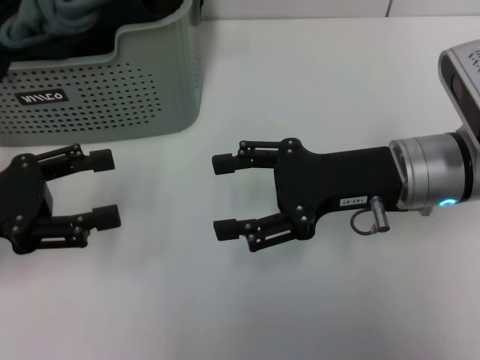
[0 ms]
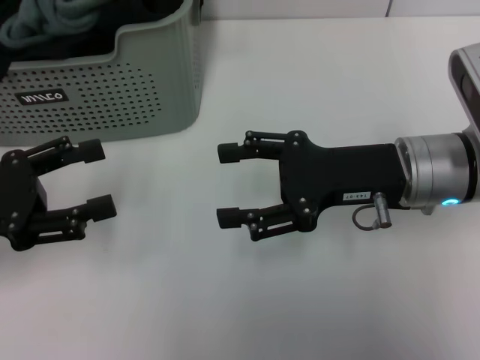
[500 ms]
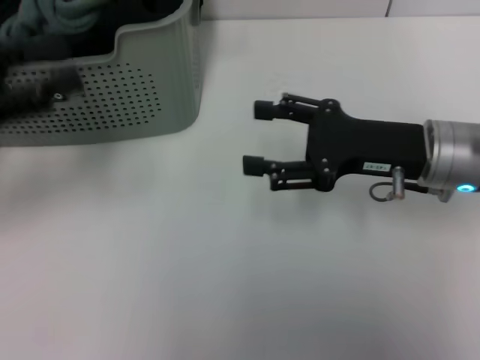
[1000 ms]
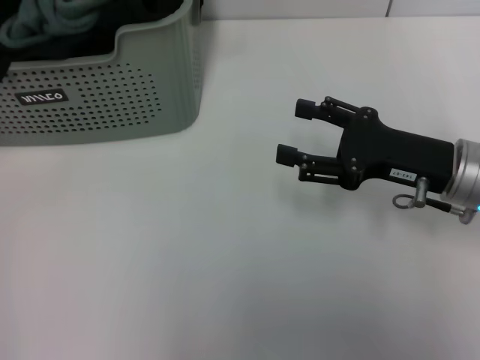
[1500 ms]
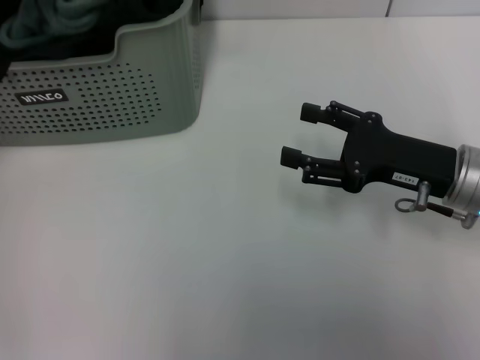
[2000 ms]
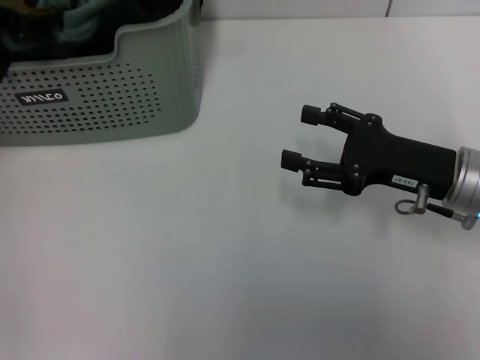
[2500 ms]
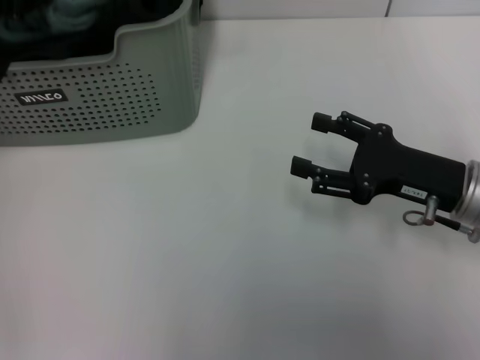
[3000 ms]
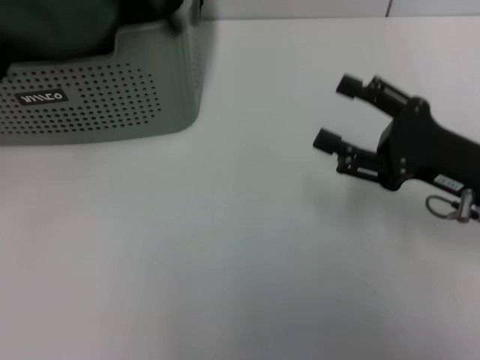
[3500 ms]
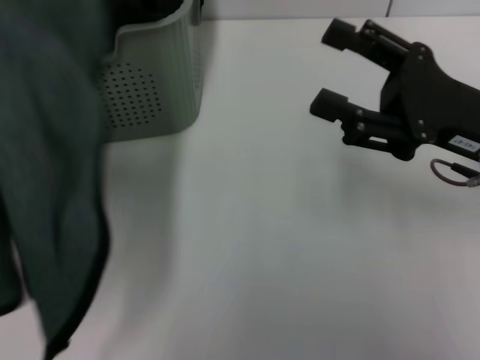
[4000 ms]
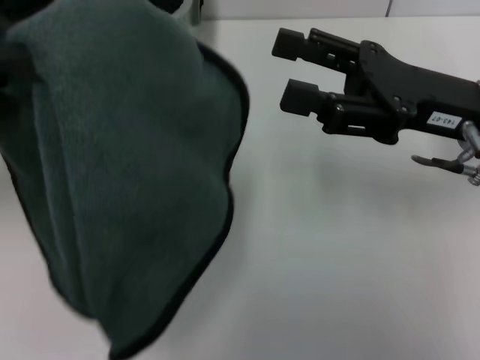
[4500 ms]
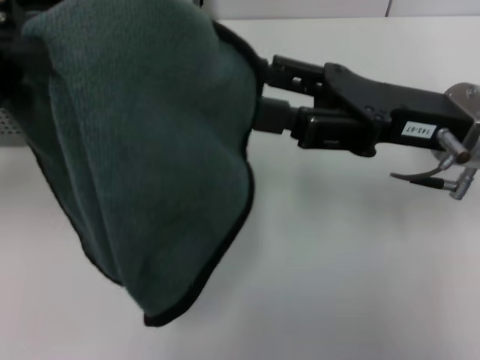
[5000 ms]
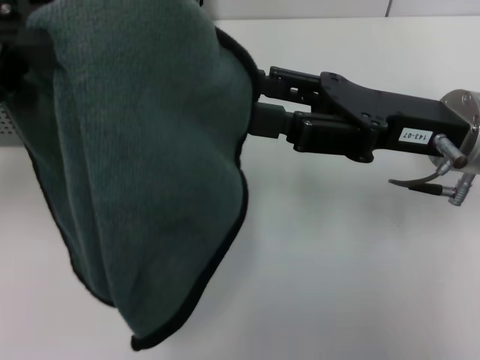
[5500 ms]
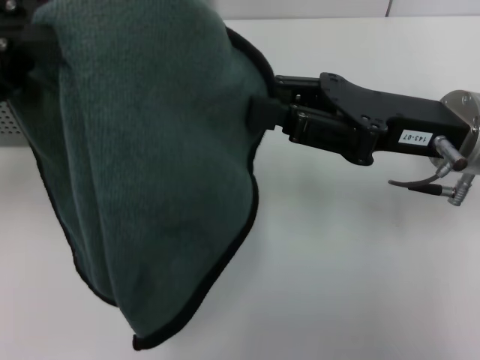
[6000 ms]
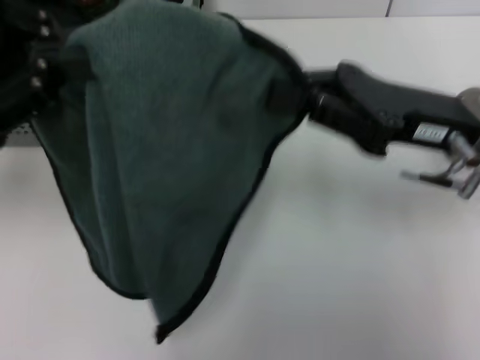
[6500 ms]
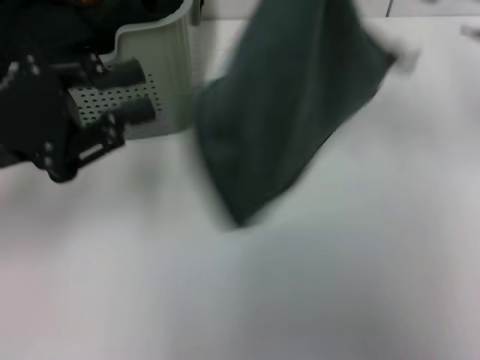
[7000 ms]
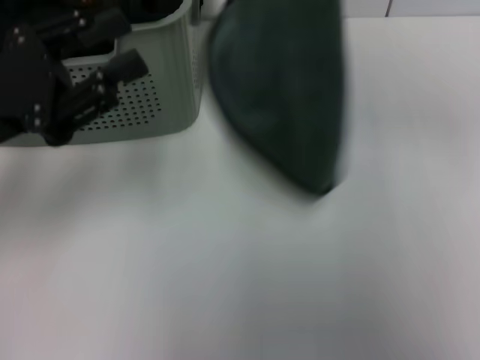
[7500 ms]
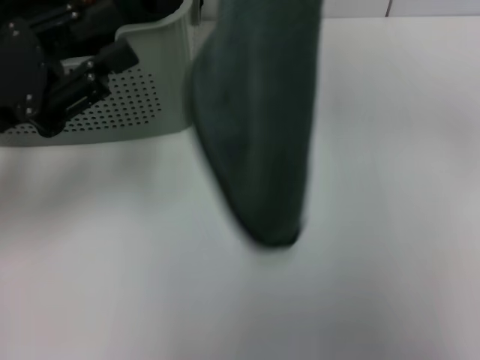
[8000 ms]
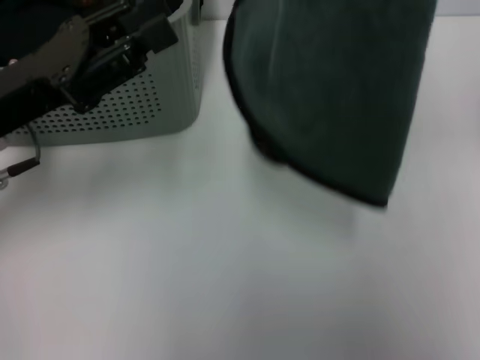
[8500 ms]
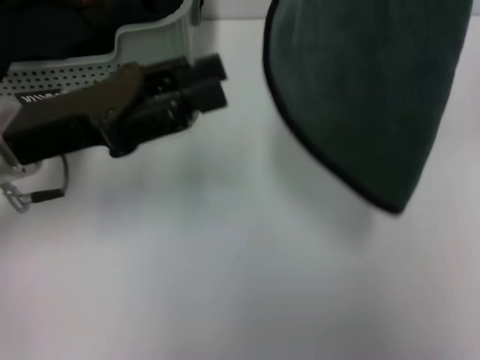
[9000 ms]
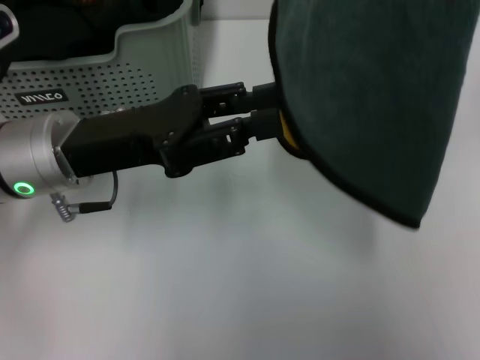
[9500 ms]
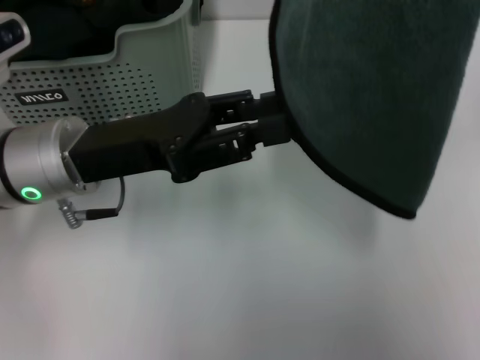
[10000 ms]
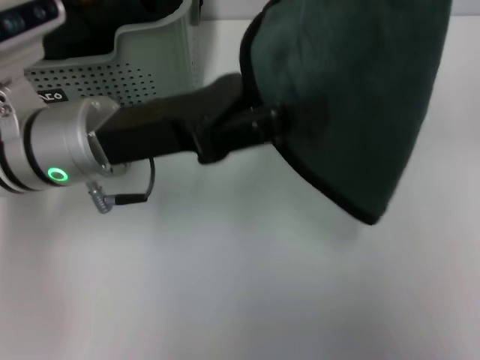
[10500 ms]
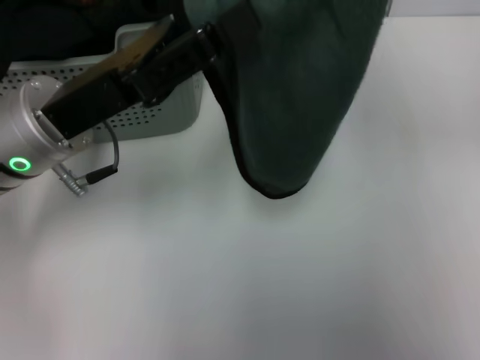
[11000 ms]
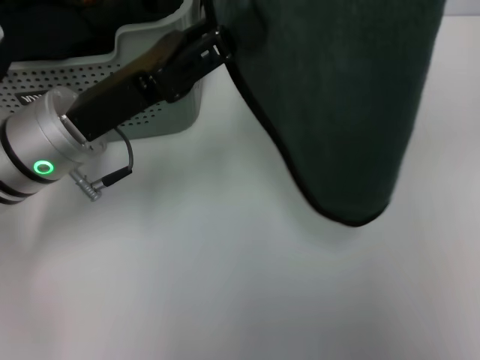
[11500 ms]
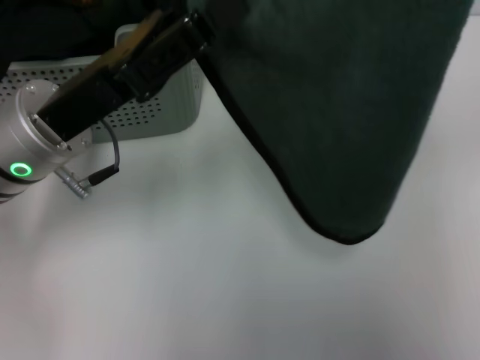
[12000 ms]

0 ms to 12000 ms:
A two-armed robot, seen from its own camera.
Task of the whole recording: pick up the towel from the storage box and lay it flat on the table.
Step, 0 ms to 3000 ms: Pick up a towel with the left gripper.
Step, 3500 ms to 6000 ms: Spread the towel flat with the left gripper.
0 ms to 2000 ms: The right gripper heads to the right, covering roughly 5 cm, while the left gripper goes approximately 20 cm upward and forward.
2000 ms to 4000 ms: The left gripper goes some 10 cm backward, and closes. Meanwhile the right gripper shifts approximately 5 cm upward.
4000 ms to 6000 ms: The left gripper shifts some 5 cm to the right, while the right gripper closes up.
6000 ms to 8000 ms: The right gripper shifts some 20 cm upward, and closes; the left gripper travels downward by roughly 10 cm, and opens.
8000 ms to 10000 ms: The left gripper moves to the right, about 10 cm.

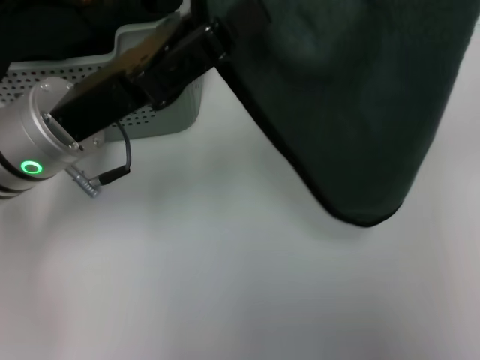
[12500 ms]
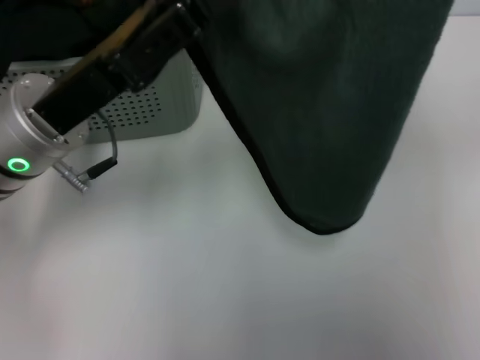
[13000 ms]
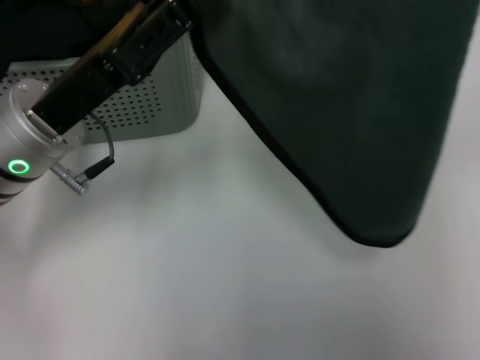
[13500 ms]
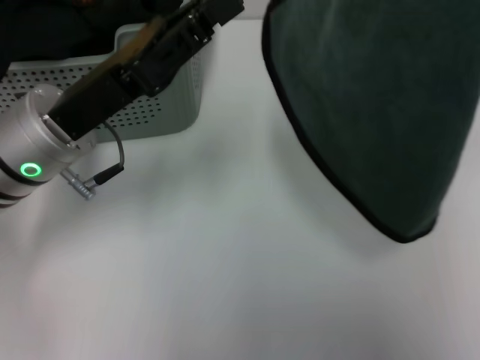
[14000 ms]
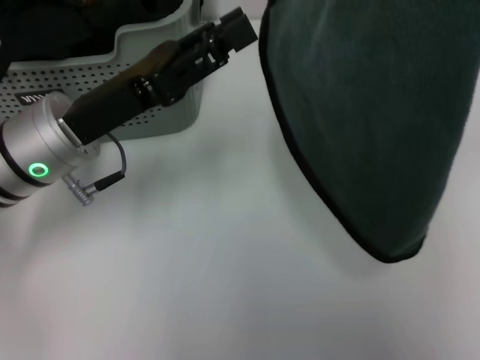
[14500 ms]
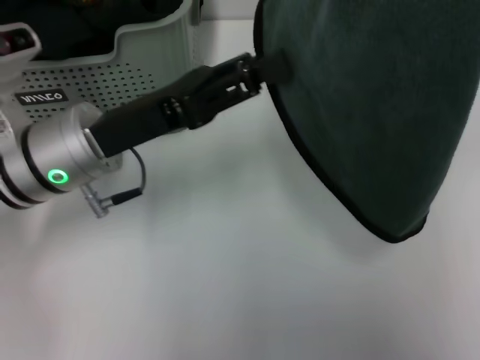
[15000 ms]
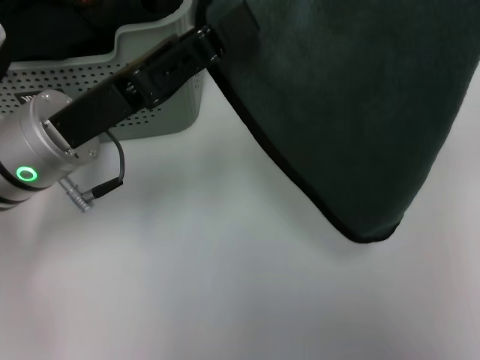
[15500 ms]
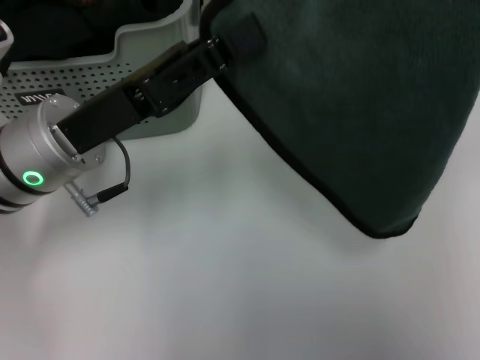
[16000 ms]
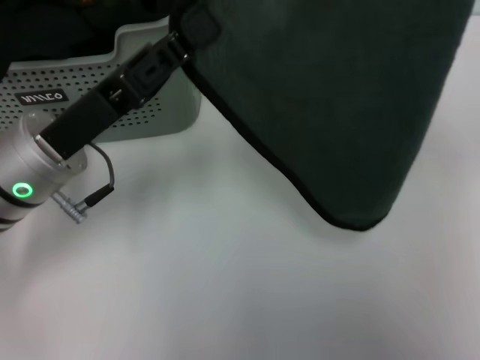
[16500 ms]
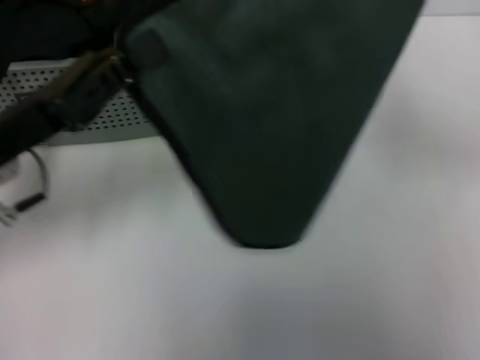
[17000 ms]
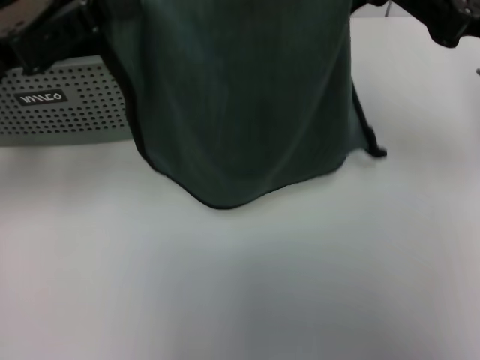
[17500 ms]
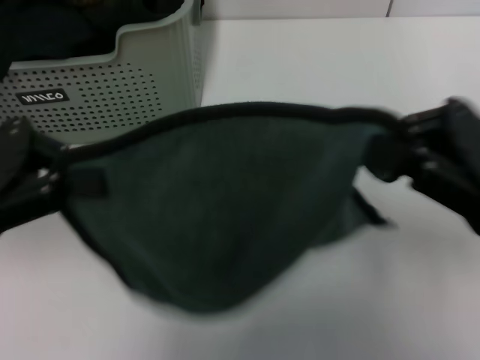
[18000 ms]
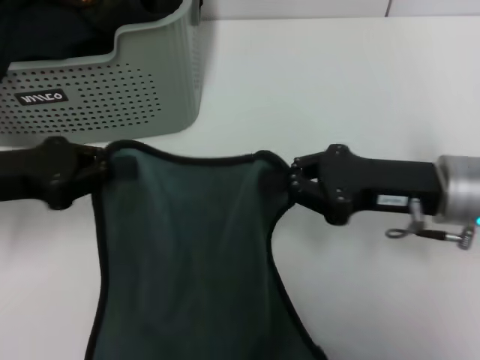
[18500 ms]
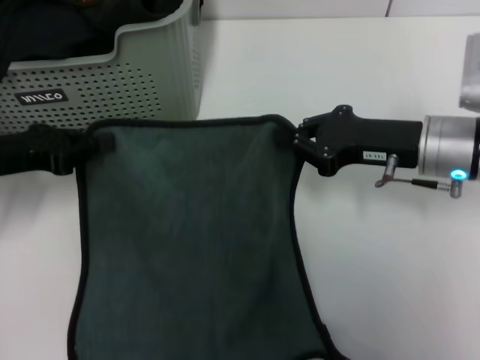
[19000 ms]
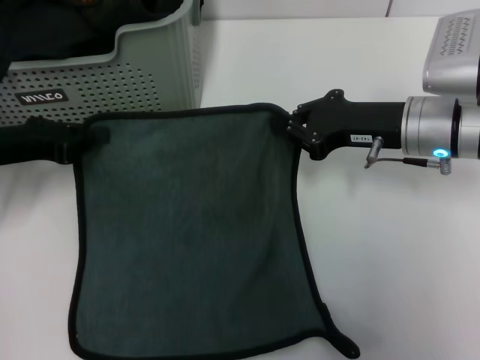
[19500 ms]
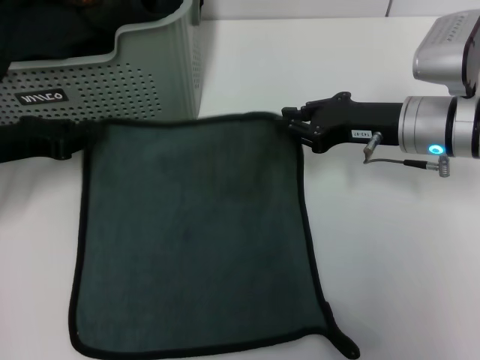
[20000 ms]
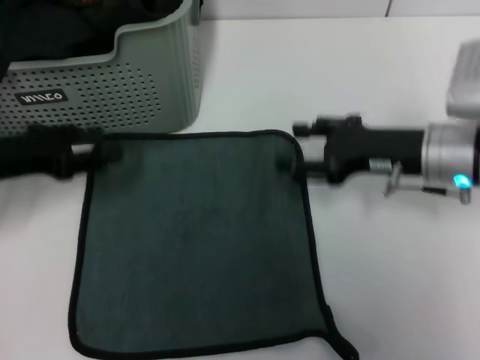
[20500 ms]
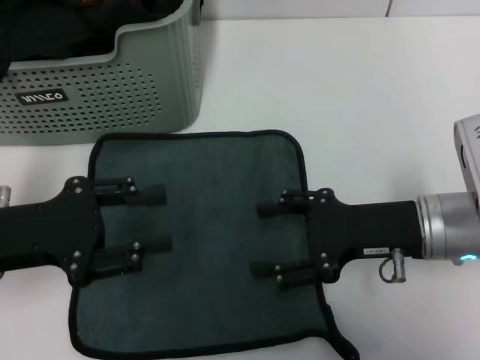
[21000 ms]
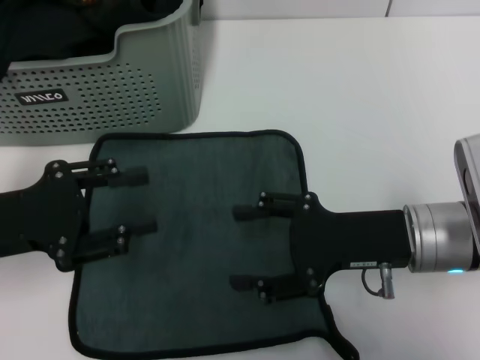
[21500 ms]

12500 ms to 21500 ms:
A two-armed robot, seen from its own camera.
Task of the whole recording: pick up the towel from the storage box and lay it flat on the table.
Step, 12500 ms to 20000 ms: Spread the towel flat with the right gripper.
12500 ms to 14500 ms: The grippers move only a little.
14500 ms to 17000 ms: The left gripper heads to the left, covering roughly 5 cm, and closes; the right gripper moves downward, roughly 10 cm.
17000 ms to 19500 ms: The right gripper goes about 15 cm downward and to the left, while the left gripper is displaced to the left by some 5 cm, and goes upward and returns, about 5 cm each way.
19500 ms to 21500 ms: The grippers both shift backward by about 10 cm. The left gripper opens; the right gripper opens up.
